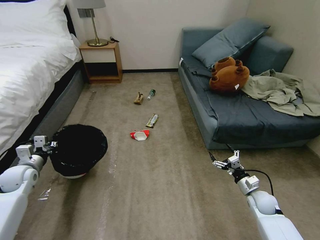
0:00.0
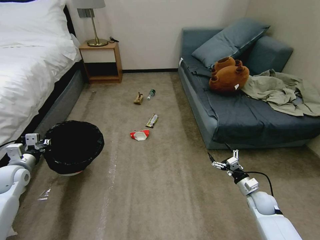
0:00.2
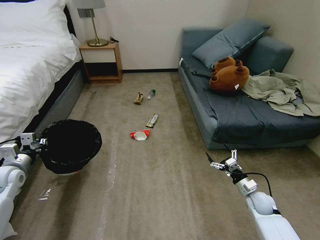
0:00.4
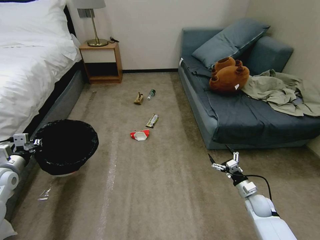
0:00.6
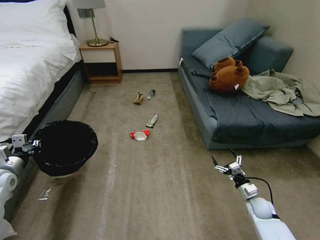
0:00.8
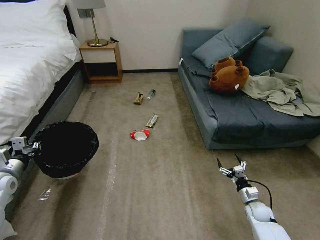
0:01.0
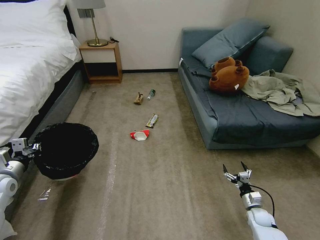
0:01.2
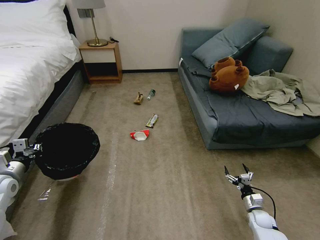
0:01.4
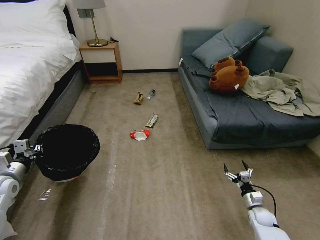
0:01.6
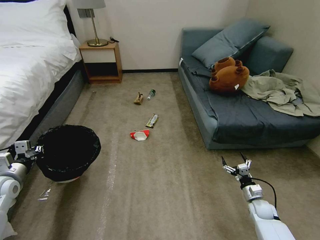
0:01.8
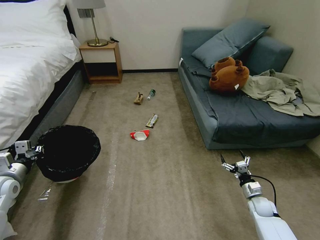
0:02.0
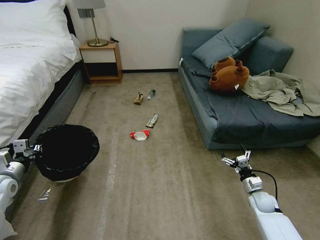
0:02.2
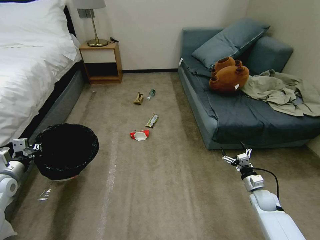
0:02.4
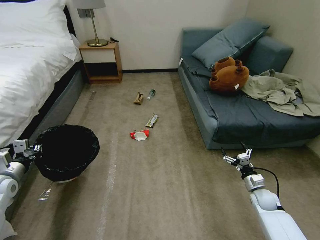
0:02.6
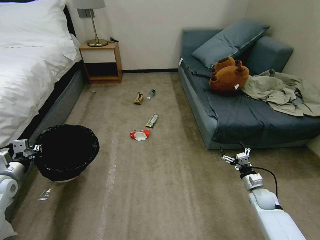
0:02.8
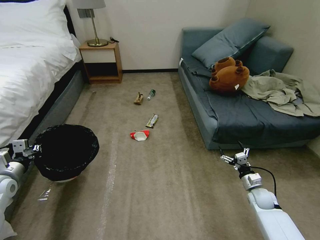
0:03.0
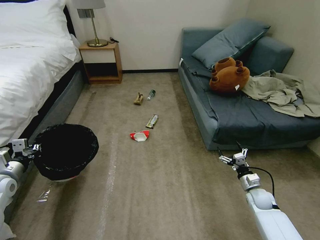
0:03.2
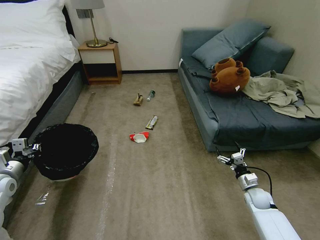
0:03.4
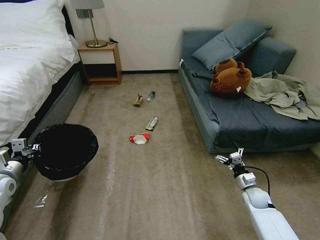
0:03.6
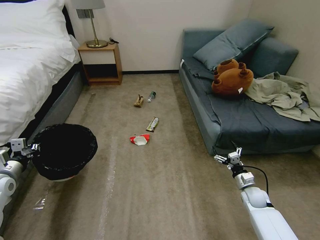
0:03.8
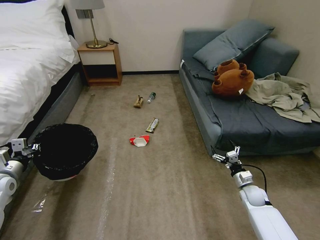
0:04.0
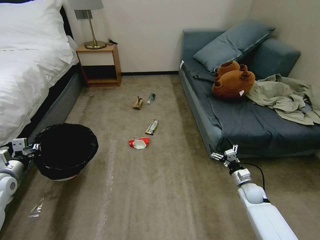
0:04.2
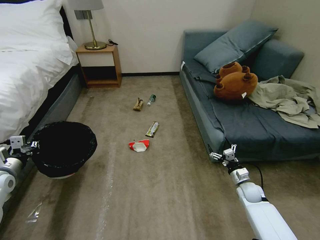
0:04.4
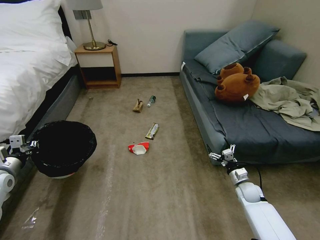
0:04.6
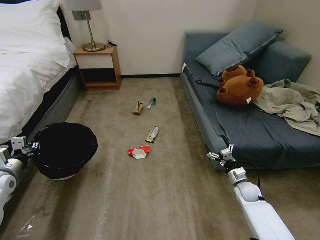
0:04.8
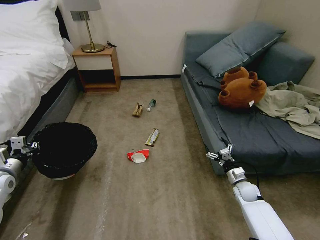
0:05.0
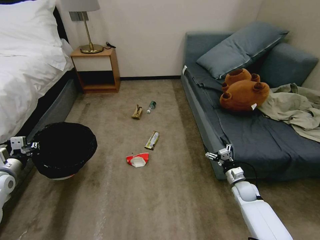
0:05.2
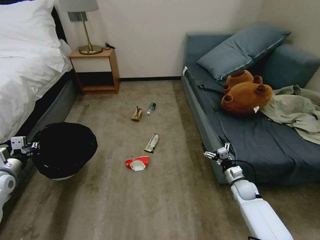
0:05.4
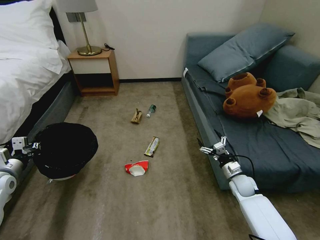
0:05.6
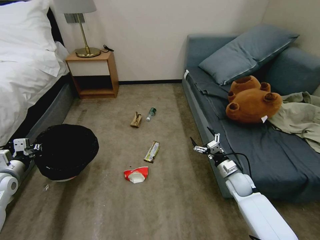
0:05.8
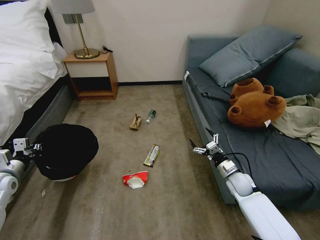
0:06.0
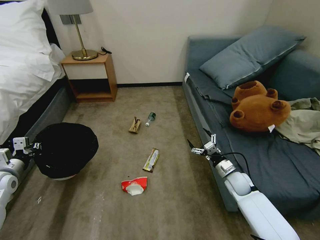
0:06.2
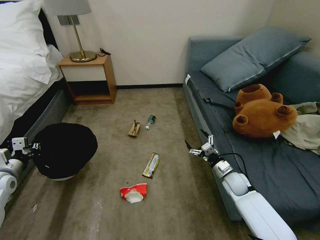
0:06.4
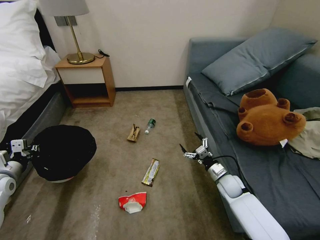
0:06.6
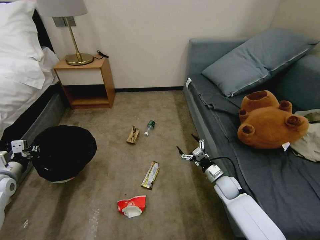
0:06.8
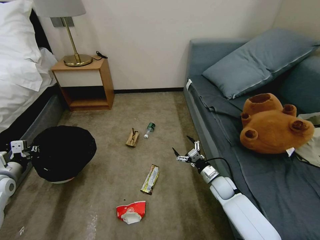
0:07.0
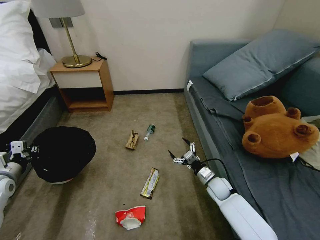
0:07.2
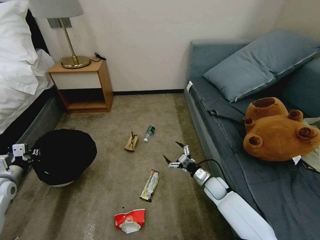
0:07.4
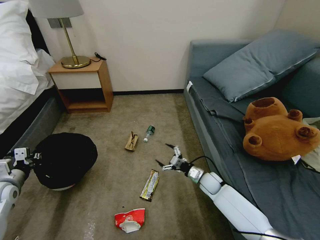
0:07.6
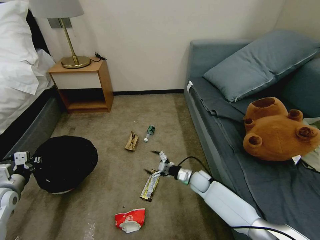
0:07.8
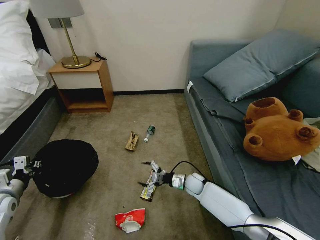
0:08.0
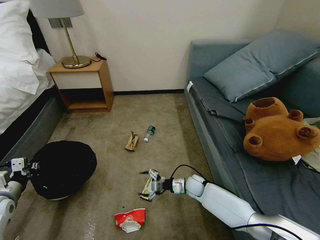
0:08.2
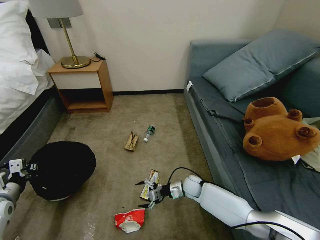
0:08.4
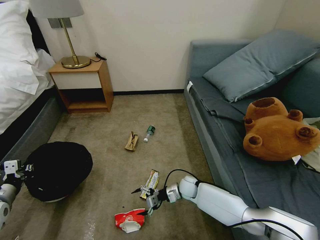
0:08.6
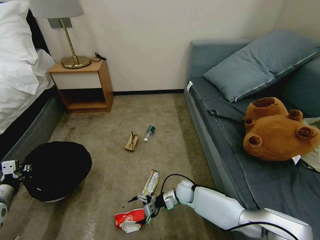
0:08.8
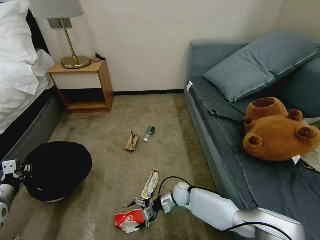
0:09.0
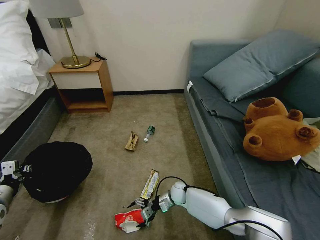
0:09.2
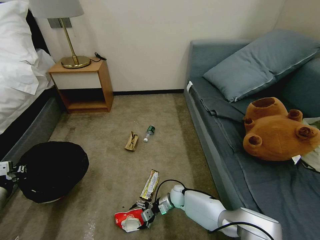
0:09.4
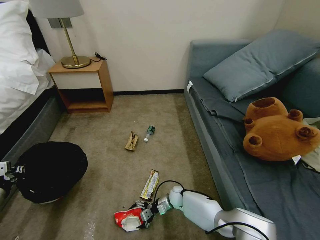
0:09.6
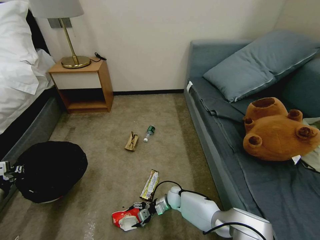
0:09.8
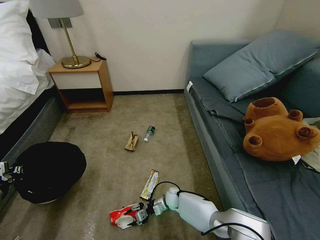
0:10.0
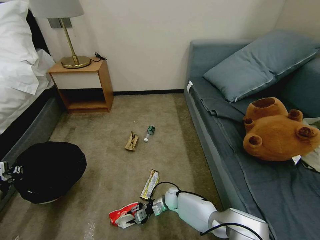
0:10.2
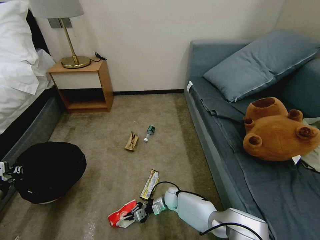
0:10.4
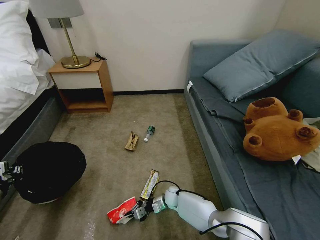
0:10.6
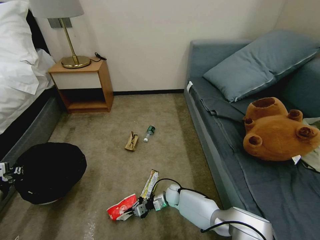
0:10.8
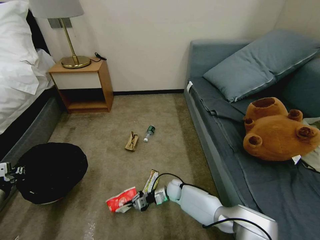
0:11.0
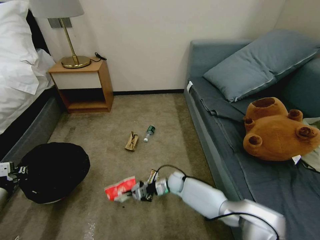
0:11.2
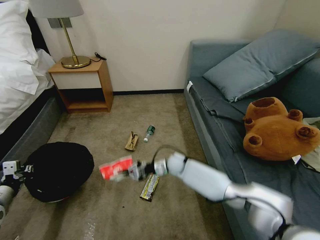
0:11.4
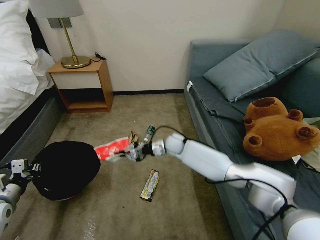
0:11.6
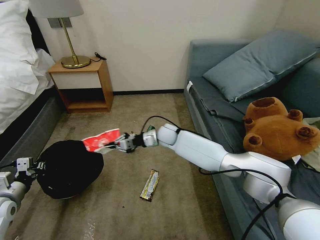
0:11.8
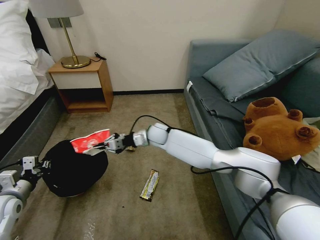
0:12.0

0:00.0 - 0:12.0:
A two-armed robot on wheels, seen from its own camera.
Task of the whole recording: Pick up the trash bin, then pick up the garbage on the floor and place it into the trash bin.
0:00.0 - 0:01.6: The right gripper moves downward, roughly 10 cm. The left gripper heads backward, covering about 5 cm.
0:01.6 - 0:03.0: The right gripper is displaced upward and forward by some 10 cm.
0:04.4 - 0:06.0: The right gripper is displaced to the left and upward by roughly 10 cm.
0:06.0 - 0:07.6: The right gripper moves to the left and downward, approximately 10 cm.
0:07.6 - 0:09.0: The right gripper goes roughly 15 cm to the left and downward, while the left gripper shifts roughly 5 cm backward.
0:09.0 - 0:10.4: The right gripper travels downward by roughly 5 cm, and closes up.
0:10.4 - 0:12.0: The right gripper travels upward and forward by roughly 35 cm. Meanwhile the left gripper heads to the right, covering roughly 5 cm.

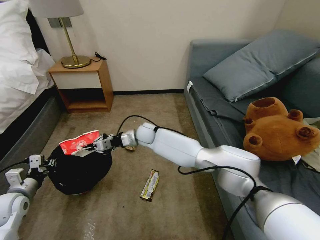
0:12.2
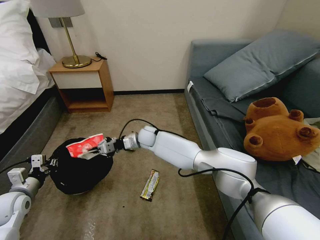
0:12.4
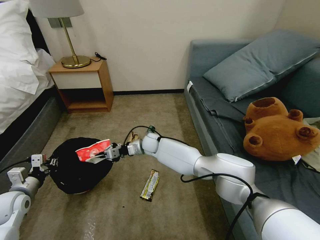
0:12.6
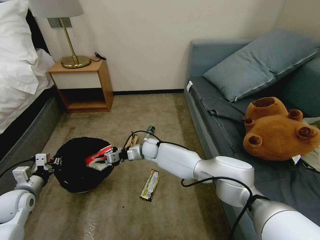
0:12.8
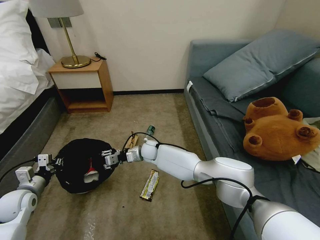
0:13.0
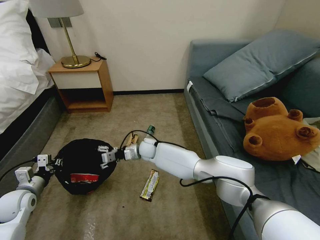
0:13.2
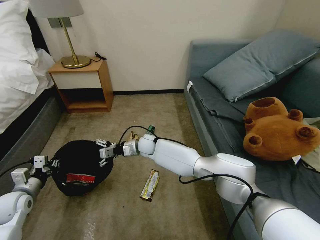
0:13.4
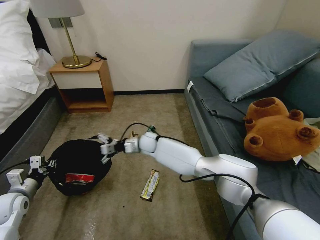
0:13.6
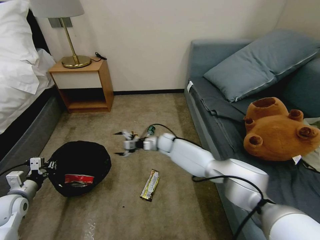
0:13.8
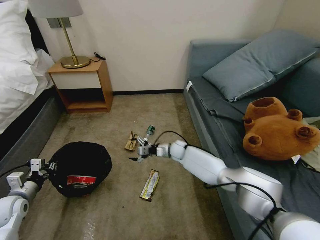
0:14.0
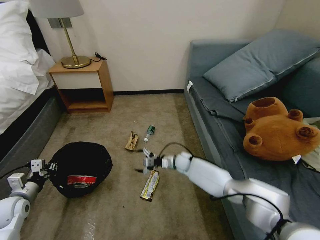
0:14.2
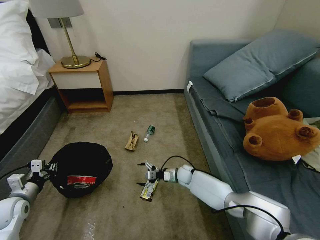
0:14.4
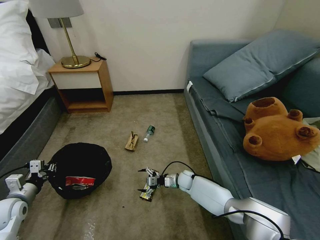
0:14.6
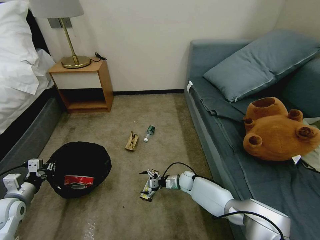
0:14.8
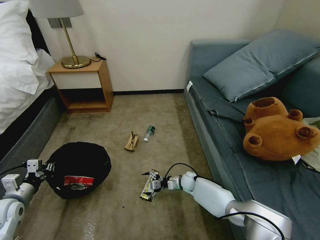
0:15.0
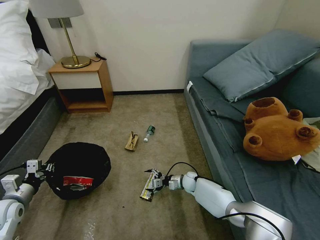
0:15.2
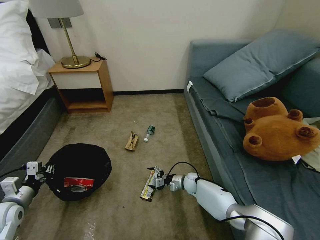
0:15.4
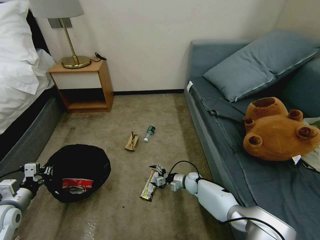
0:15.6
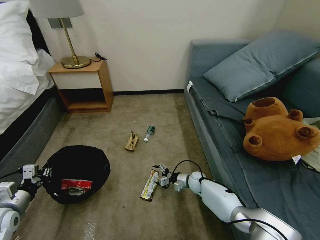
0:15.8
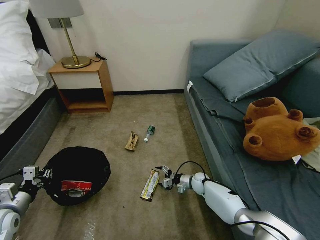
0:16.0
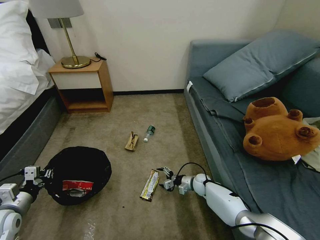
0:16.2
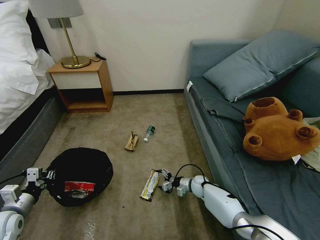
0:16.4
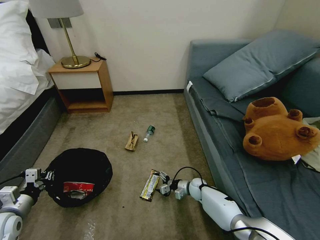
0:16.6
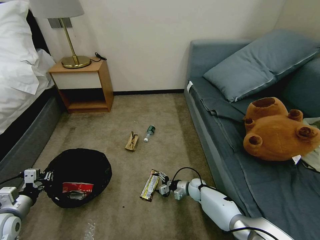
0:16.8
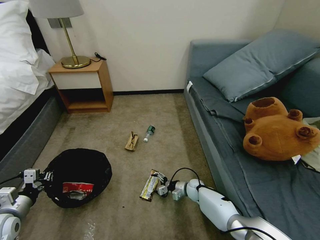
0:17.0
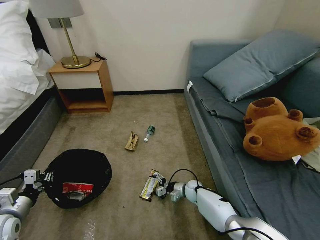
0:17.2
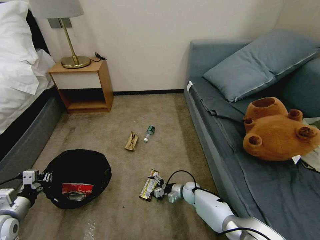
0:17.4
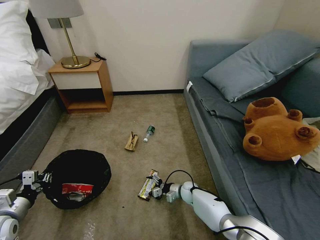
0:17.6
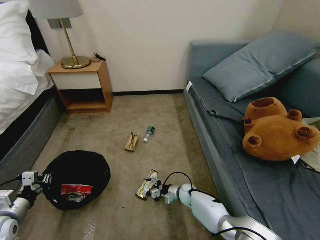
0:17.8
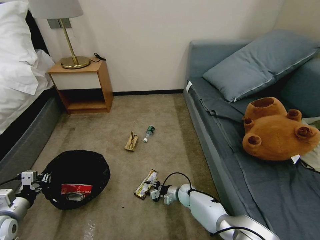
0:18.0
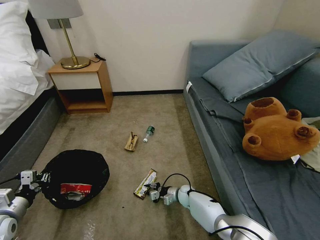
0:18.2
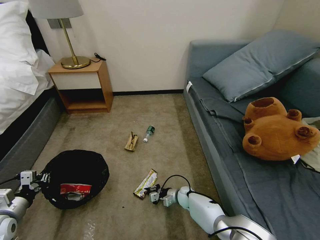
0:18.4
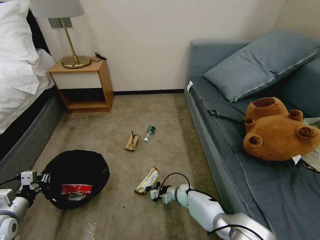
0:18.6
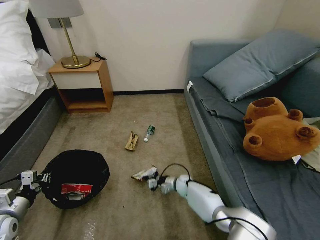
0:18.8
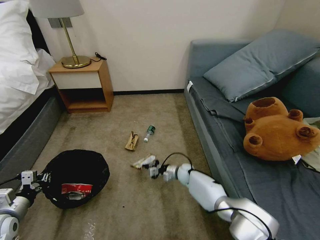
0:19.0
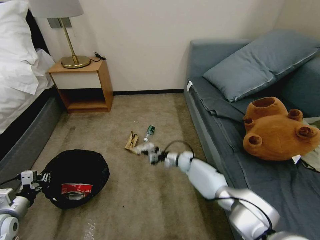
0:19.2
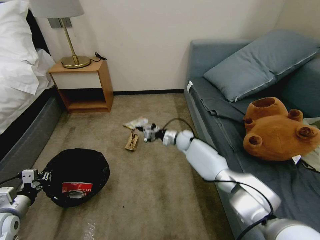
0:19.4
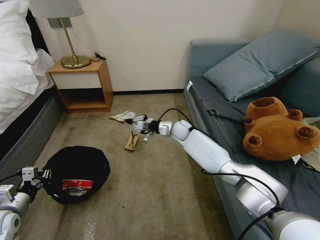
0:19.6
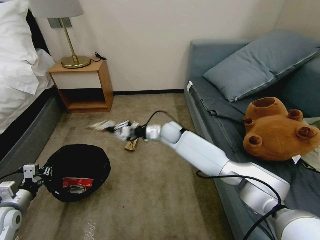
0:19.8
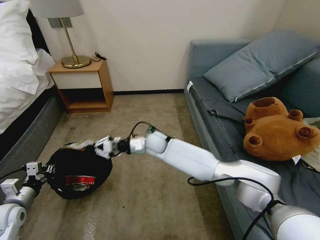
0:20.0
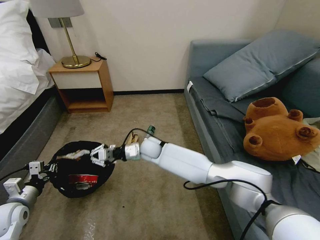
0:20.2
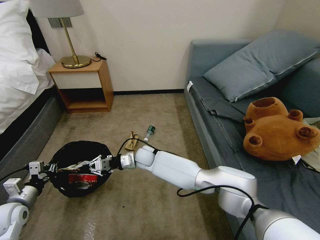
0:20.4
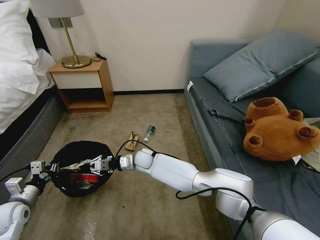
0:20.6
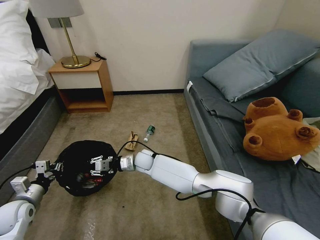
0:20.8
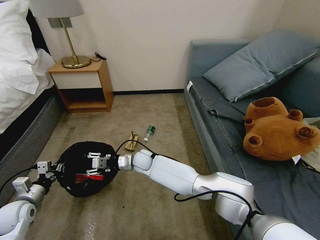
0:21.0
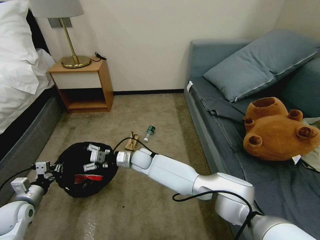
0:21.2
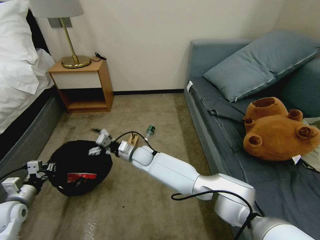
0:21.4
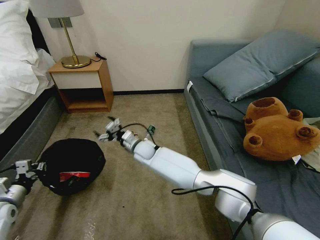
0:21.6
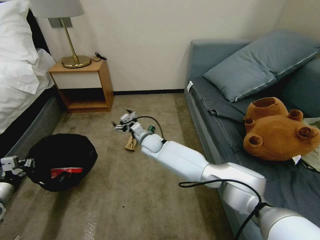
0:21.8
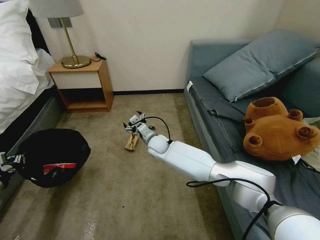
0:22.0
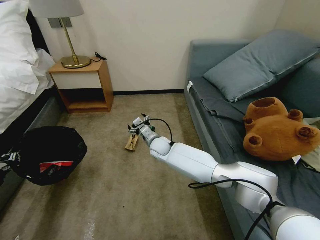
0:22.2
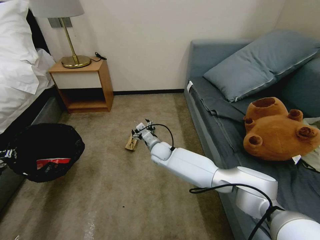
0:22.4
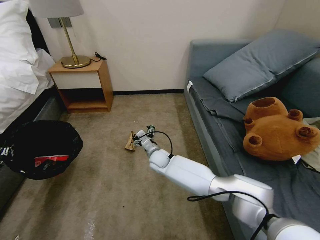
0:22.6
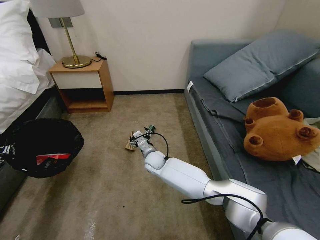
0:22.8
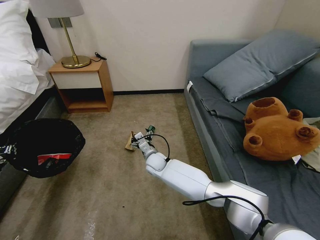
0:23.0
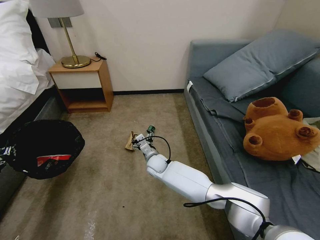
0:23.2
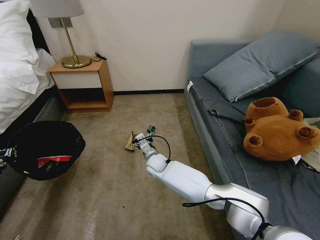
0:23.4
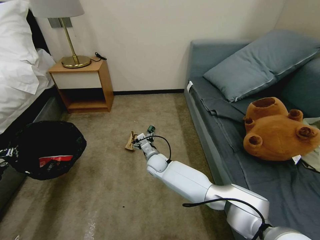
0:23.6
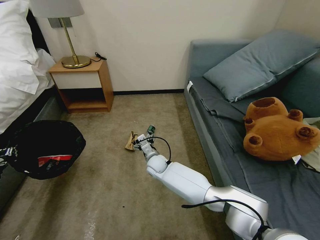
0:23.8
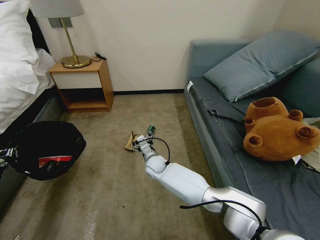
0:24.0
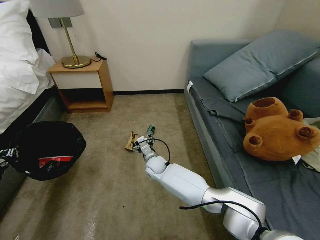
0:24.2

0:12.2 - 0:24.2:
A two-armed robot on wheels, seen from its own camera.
Task of the whole recording: Pick up the trash bin, then pick up the garbage on the floor and place it into the trash bin.
0:12.2 - 0:13.8: The right gripper shifts roughly 15 cm to the right and downward, and opens its fingers.
0:13.8 - 0:15.2: The right gripper moves downward, backward and to the right, about 20 cm.
0:15.2 - 0:16.6: The grippers move only a little.
0:16.6 - 0:18.2: The right gripper travels to the left by approximately 5 cm, and closes.
0:18.2 - 0:19.8: The right gripper travels upward and forward by some 35 cm, and closes its fingers.
0:19.8 - 0:21.2: The right gripper is displaced to the left, downward and backward by about 15 cm, and opens its fingers.
0:21.2 - 0:22.6: The right gripper heads to the right, covering approximately 10 cm; the left gripper goes roughly 15 cm to the left and upward.
0:22.6 - 0:24.2: The grippers move only a little.
